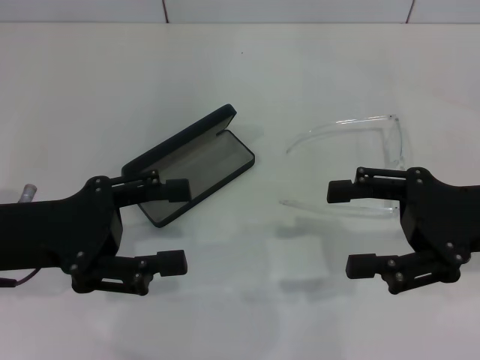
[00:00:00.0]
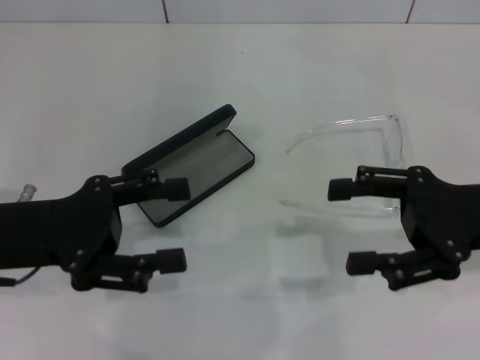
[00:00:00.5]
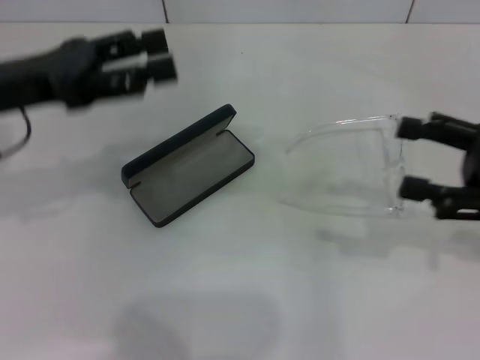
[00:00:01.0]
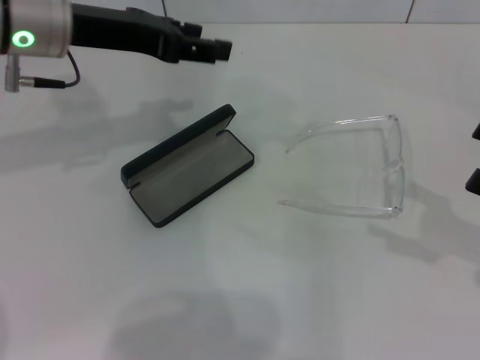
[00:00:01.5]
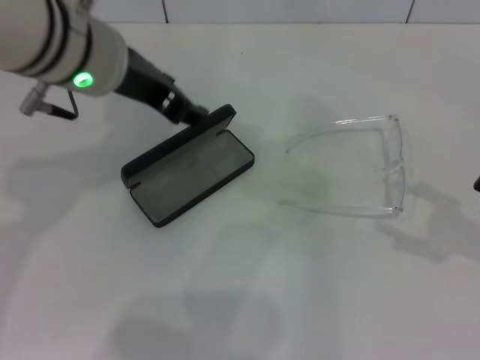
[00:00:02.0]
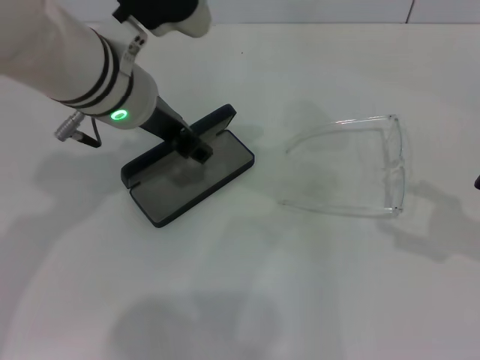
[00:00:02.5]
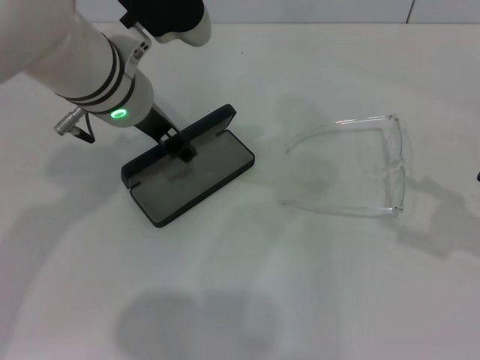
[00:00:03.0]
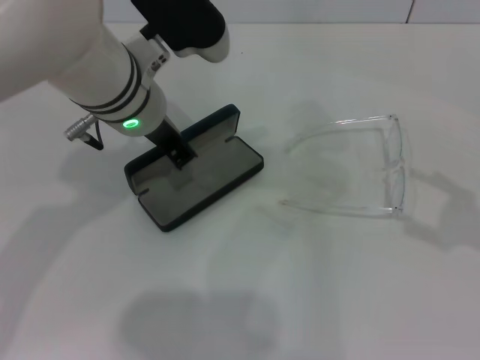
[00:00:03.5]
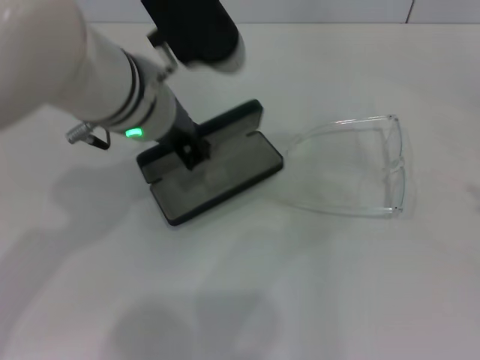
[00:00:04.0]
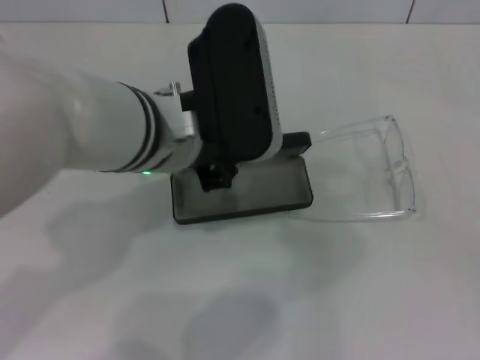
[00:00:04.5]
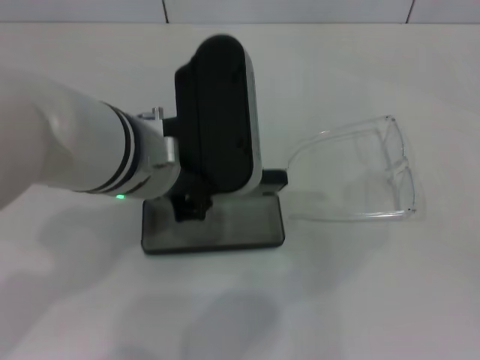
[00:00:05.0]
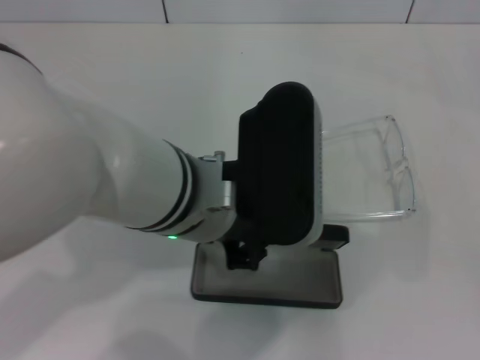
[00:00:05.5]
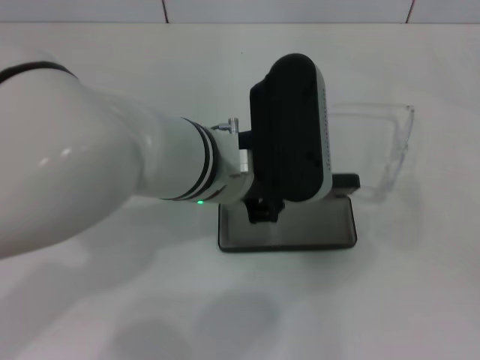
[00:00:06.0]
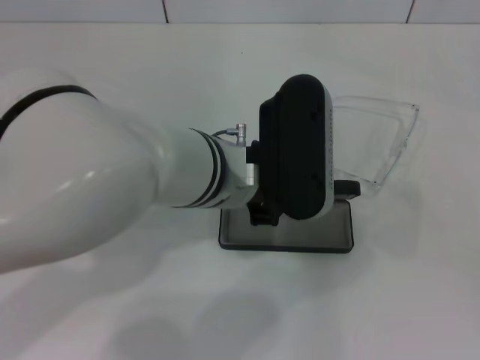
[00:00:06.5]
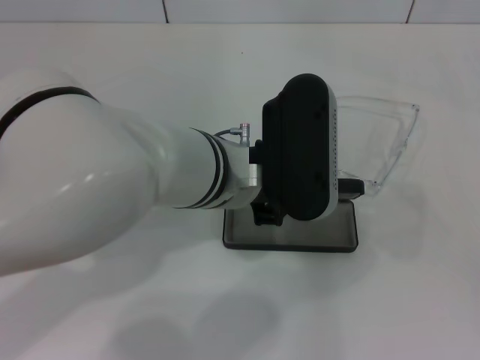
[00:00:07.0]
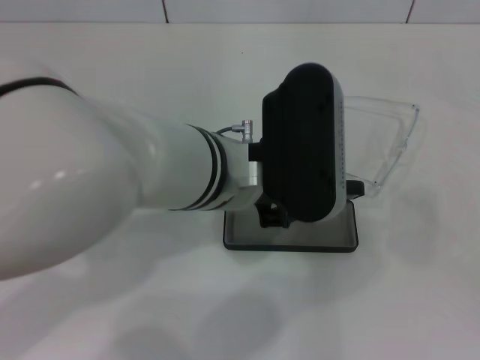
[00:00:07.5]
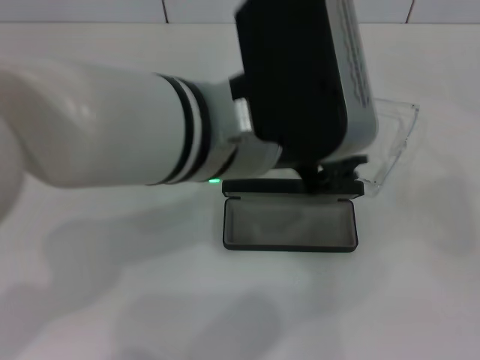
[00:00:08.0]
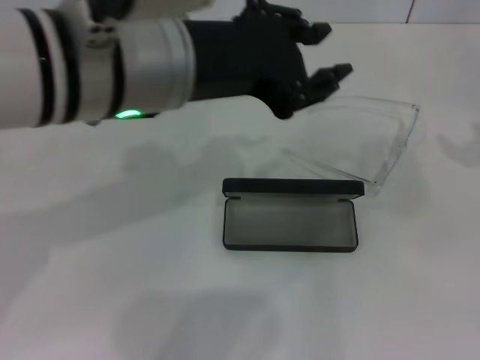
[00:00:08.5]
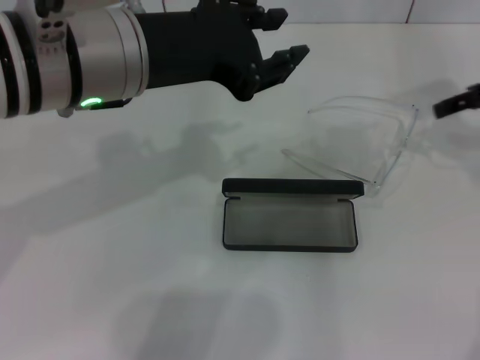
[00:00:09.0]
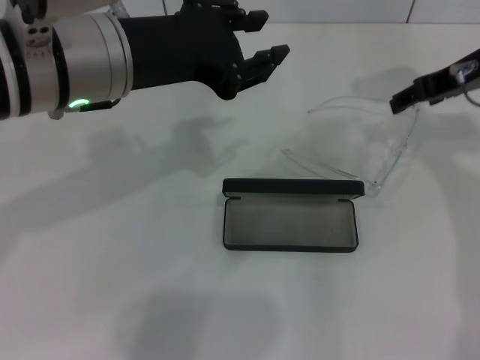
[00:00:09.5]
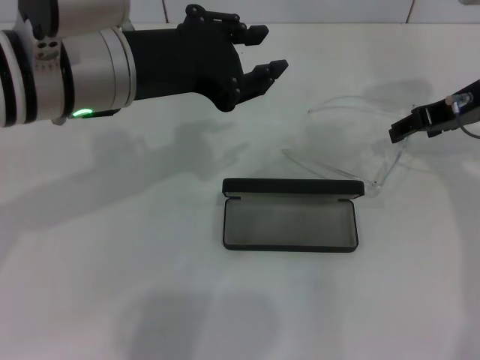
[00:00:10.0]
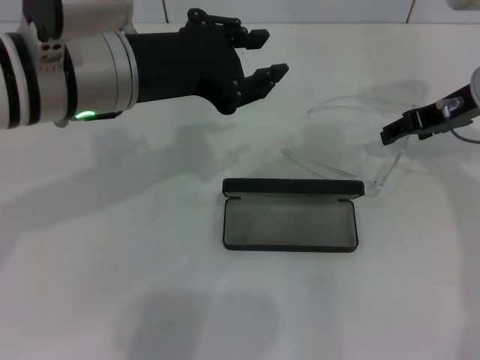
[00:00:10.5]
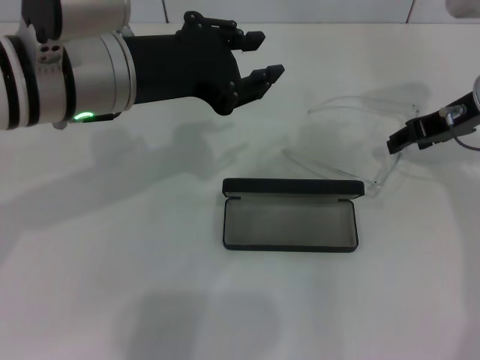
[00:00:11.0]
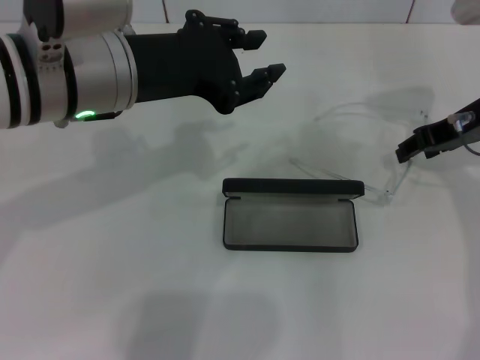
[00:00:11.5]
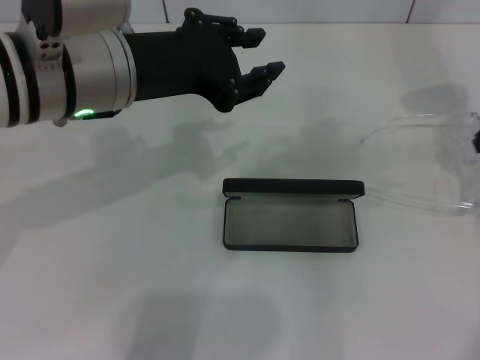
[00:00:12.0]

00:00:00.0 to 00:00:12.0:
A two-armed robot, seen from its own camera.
Step, 00:00:00.0 to 00:00:03.5: Grab the glasses case with your left hand.
Step, 00:00:04.0 to 00:00:07.5: Place the glasses case in the center of the table with your left hand.
00:00:00.0 to 00:00:02.0: The right gripper travels to the right by some 10 cm. Meanwhile the left gripper heads to the right, upward and forward, covering about 20 cm.
00:00:02.0 to 00:00:04.0: The right gripper is displaced to the right by about 5 cm; the left gripper ends up about 5 cm from where it was, and closes its fingers.
00:00:04.0 to 00:00:06.0: The left gripper travels to the right by some 5 cm.
00:00:06.0 to 00:00:08.0: The right gripper goes roughly 5 cm forward. The left gripper shifts about 5 cm upward.
00:00:08.0 to 00:00:10.0: The left gripper travels to the left and forward by approximately 10 cm. The right gripper goes some 30 cm to the left and forward.
00:00:10.0 to 00:00:12.0: The right gripper moves about 5 cm, and closes.

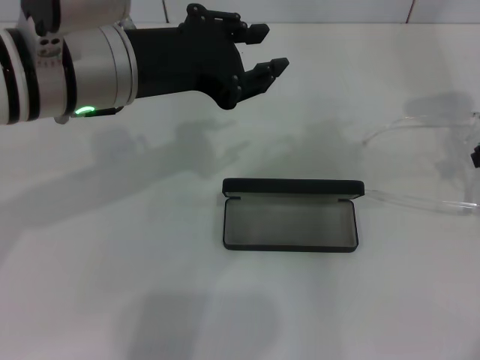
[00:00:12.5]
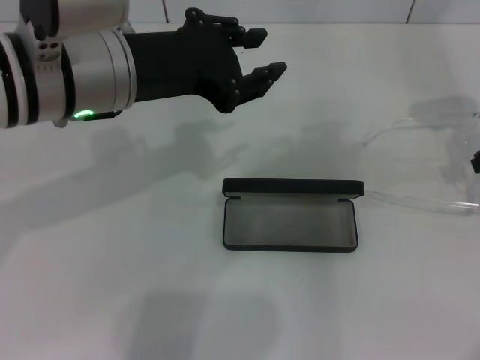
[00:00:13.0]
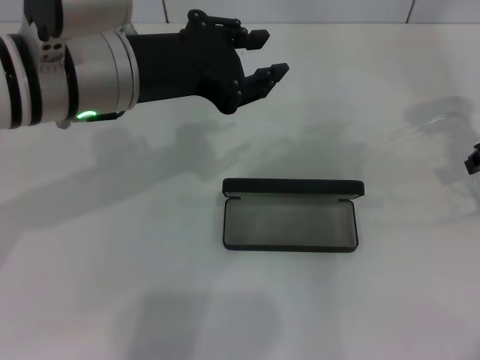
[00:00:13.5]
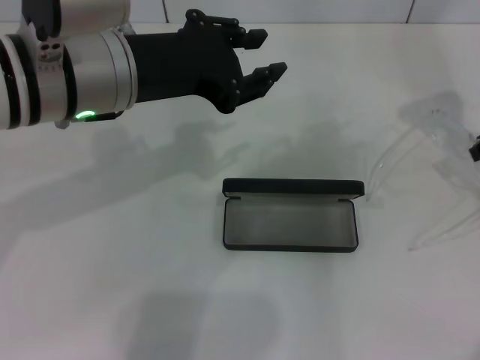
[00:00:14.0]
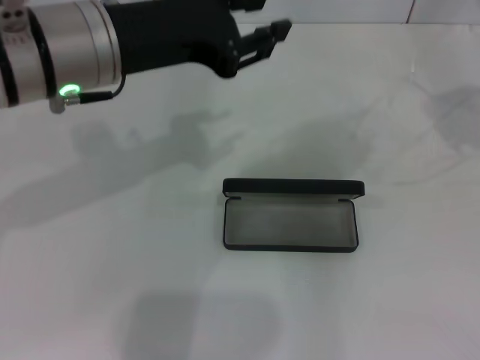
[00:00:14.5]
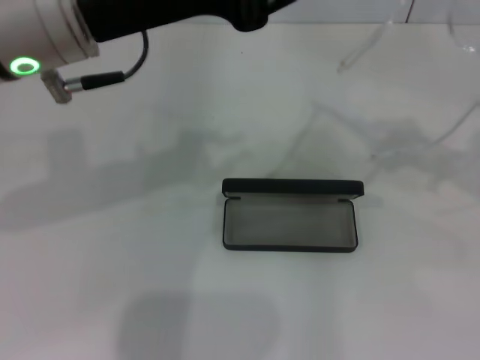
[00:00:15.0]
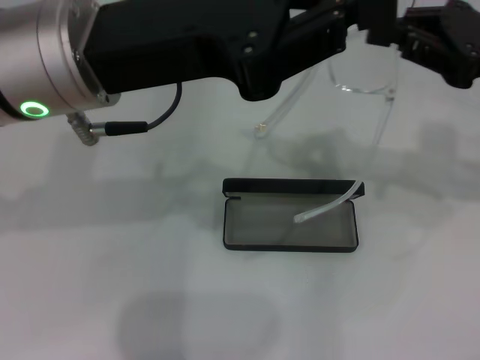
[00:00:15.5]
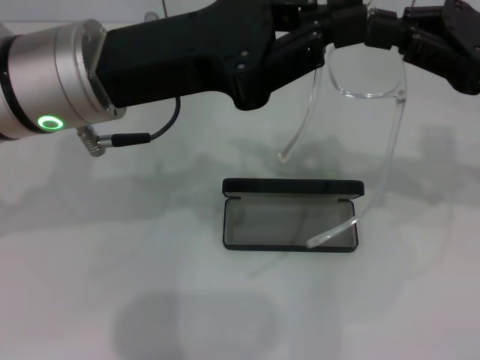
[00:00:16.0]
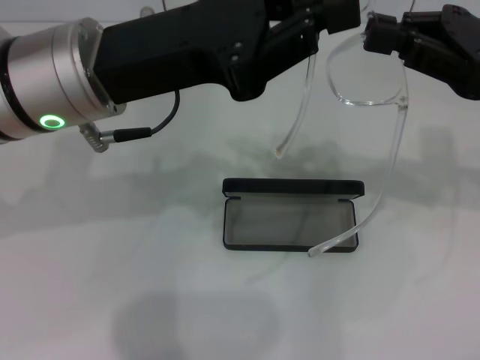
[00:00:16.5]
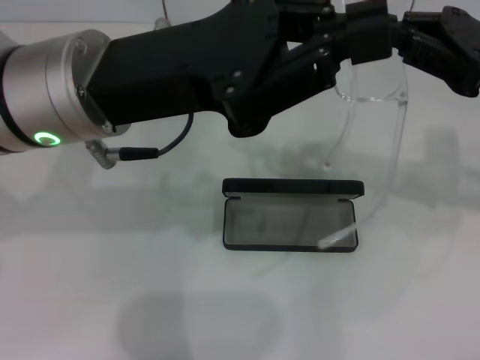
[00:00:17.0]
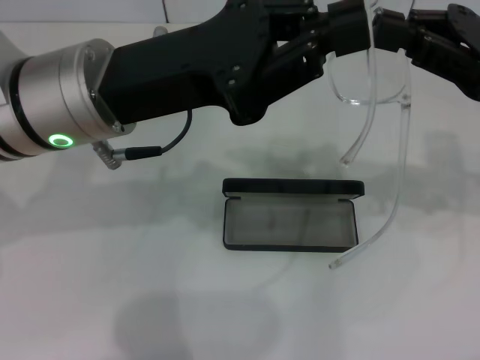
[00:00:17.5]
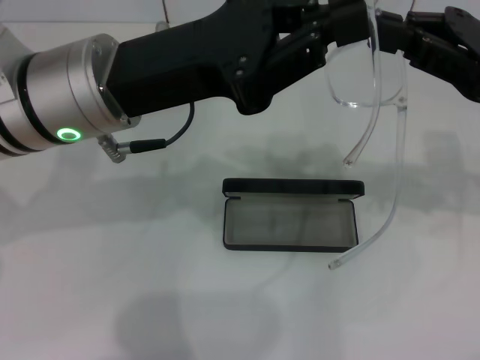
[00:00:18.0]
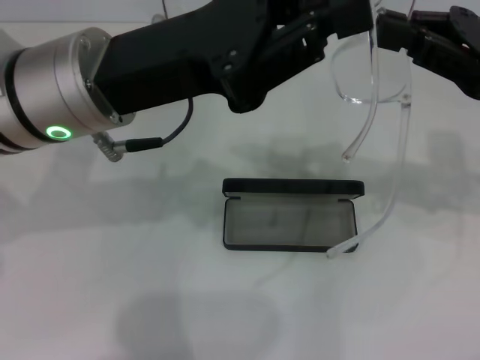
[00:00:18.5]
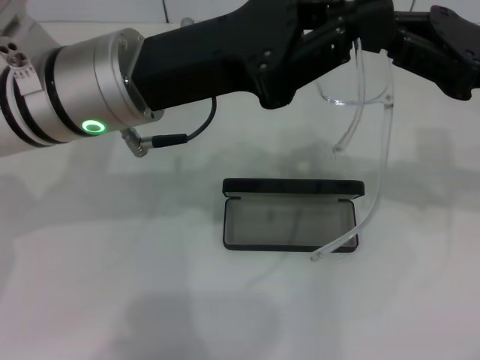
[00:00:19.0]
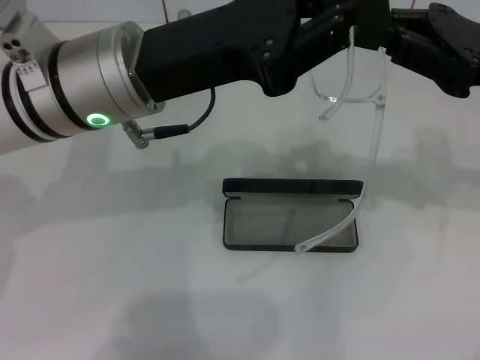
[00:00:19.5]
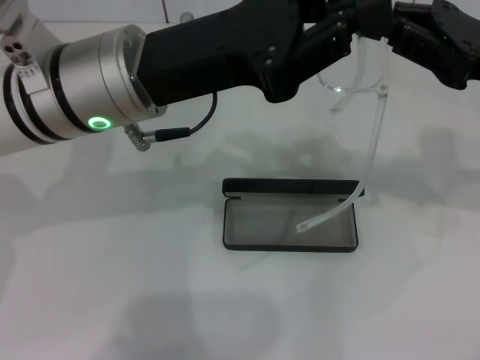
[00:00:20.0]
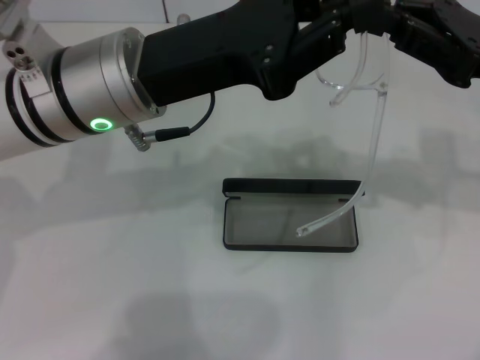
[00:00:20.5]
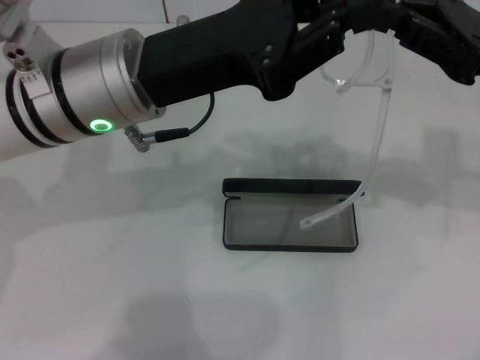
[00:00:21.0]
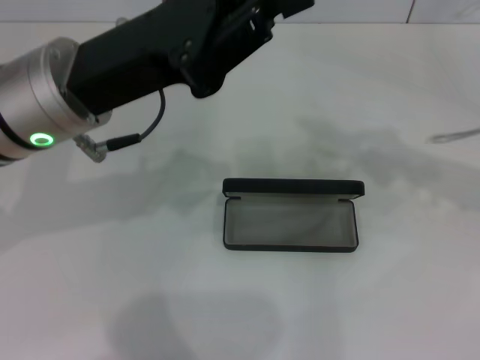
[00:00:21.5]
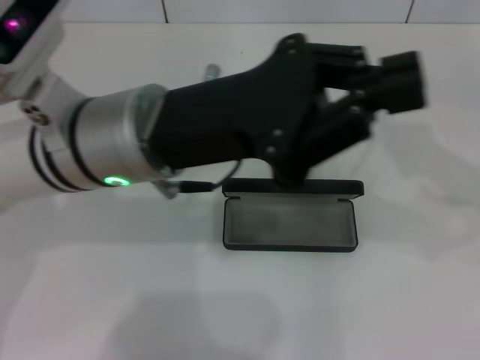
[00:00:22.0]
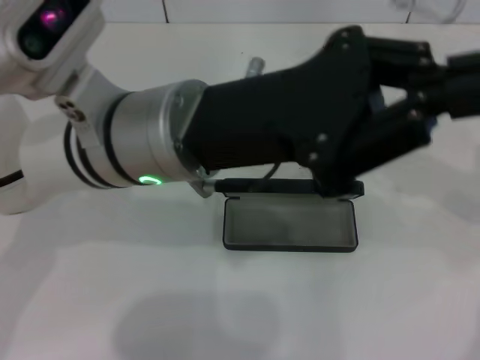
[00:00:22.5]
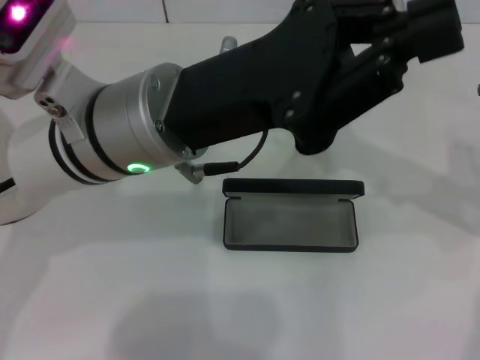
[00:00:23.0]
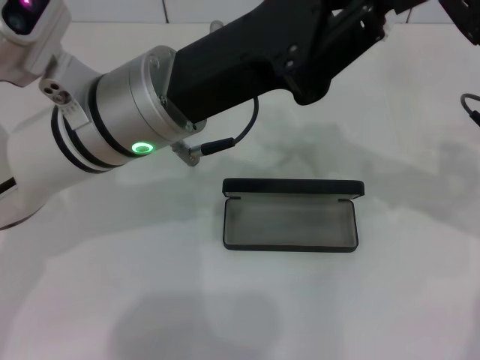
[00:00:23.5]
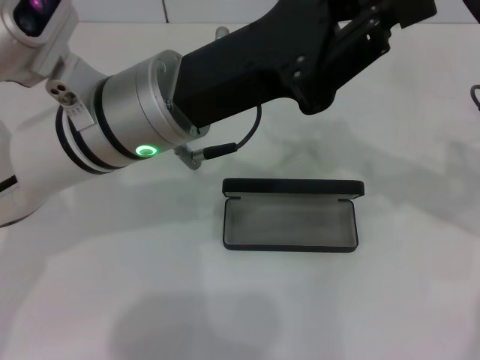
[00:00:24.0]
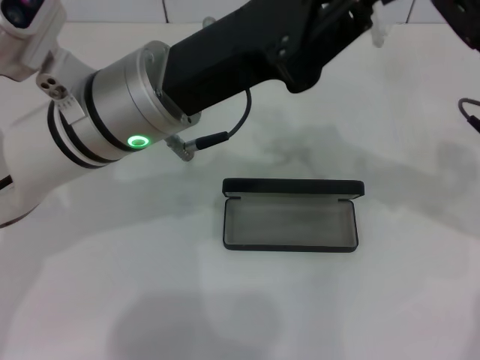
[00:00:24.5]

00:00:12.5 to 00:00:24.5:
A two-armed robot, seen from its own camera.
00:00:12.5 to 00:00:14.5: The right gripper travels upward by roughly 5 cm.
00:00:14.5 to 00:00:16.5: The left gripper closes its fingers. Meanwhile the right gripper moves to the left, some 5 cm.
00:00:16.5 to 00:00:20.5: The grippers move only a little.
00:00:20.5 to 00:00:22.5: The left gripper moves approximately 5 cm.

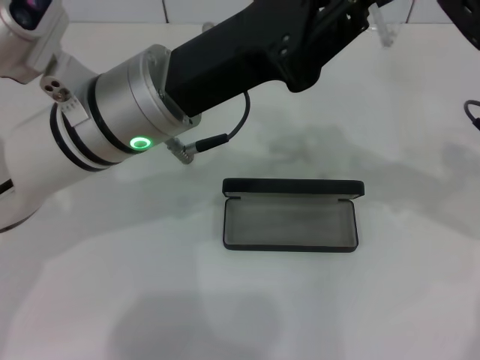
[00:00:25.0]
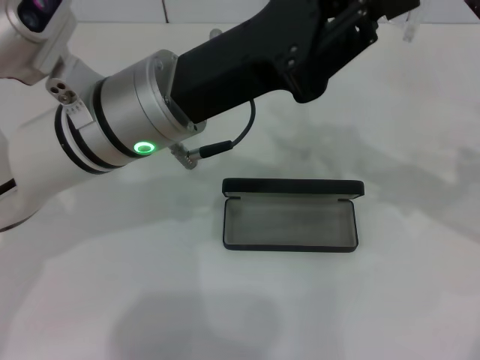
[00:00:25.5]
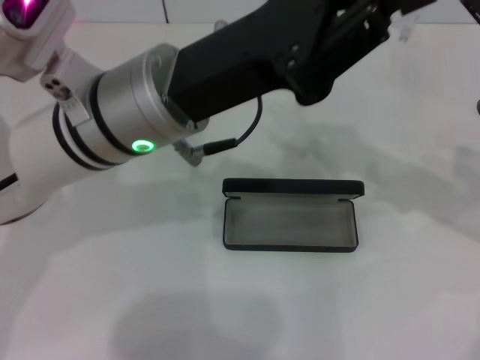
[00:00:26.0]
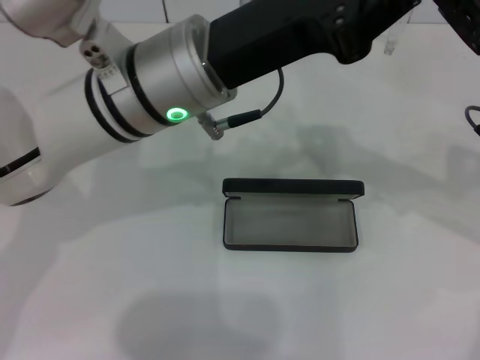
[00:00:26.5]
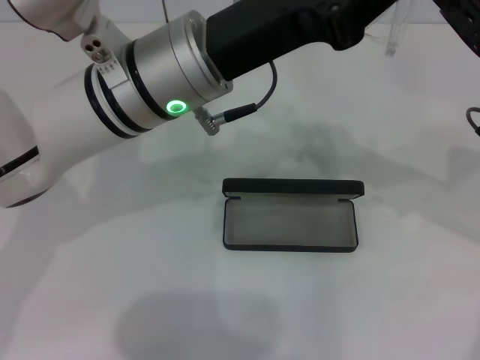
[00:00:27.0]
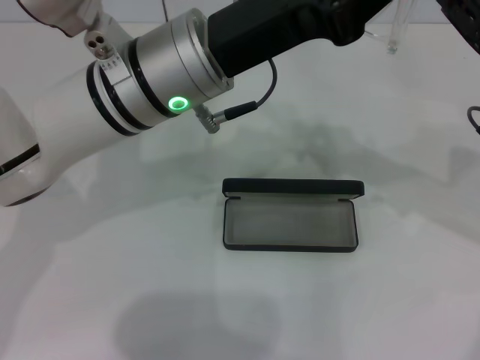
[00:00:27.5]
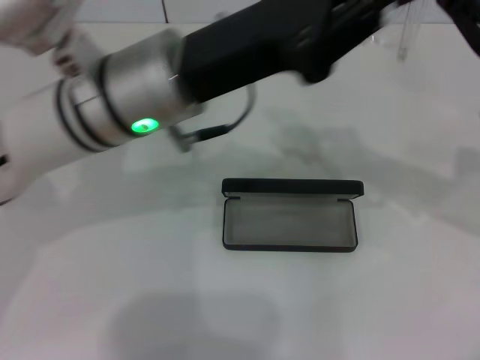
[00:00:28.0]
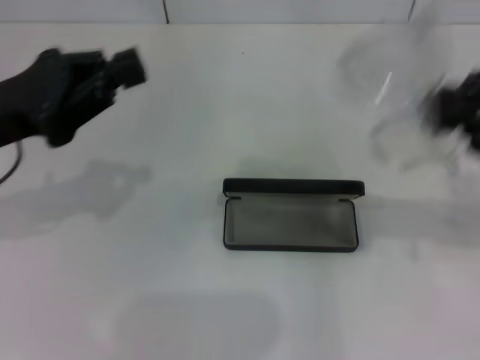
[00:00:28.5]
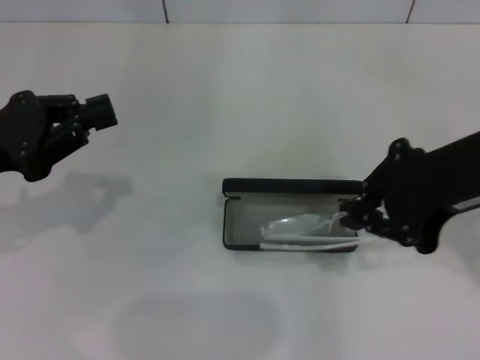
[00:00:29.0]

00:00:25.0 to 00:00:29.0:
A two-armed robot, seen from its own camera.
00:00:25.0 to 00:00:27.0: There are only small adjustments of the grippers.
00:00:27.0 to 00:00:29.0: The right gripper shifts roughly 10 cm upward, backward and to the left. The left gripper shifts roughly 20 cm to the left.
